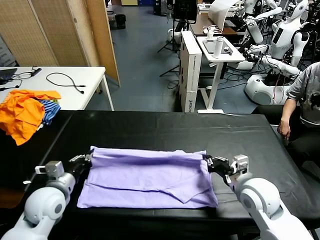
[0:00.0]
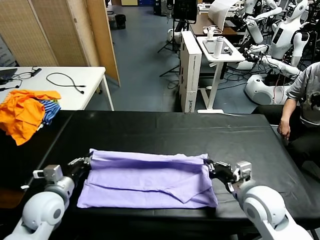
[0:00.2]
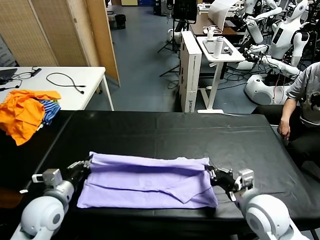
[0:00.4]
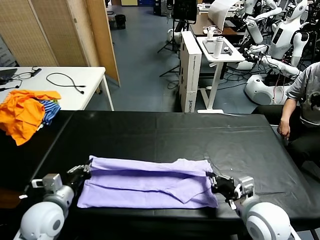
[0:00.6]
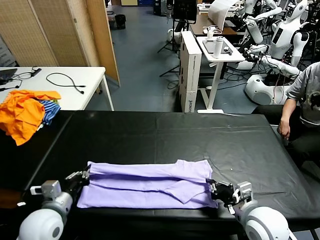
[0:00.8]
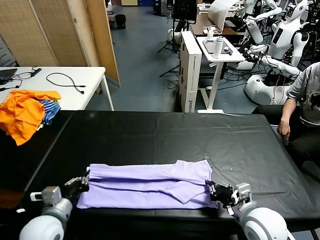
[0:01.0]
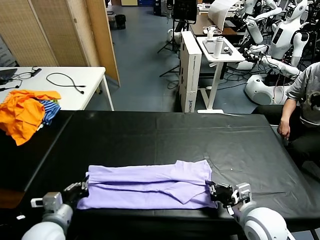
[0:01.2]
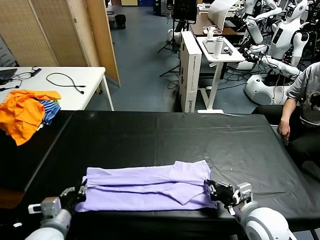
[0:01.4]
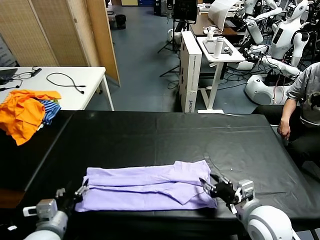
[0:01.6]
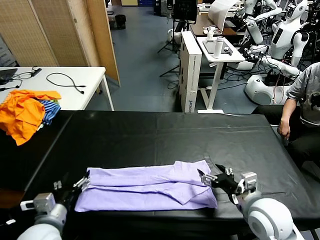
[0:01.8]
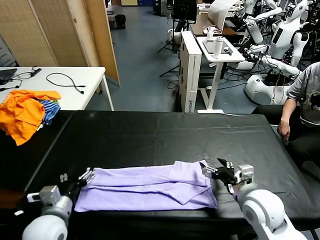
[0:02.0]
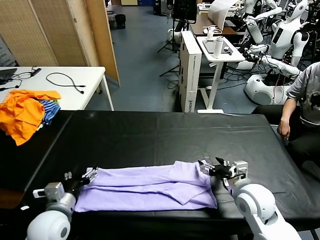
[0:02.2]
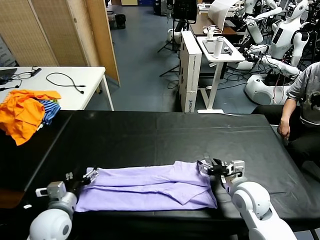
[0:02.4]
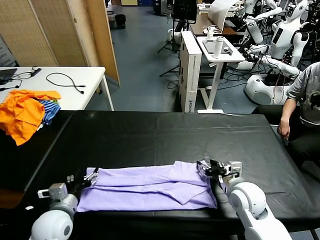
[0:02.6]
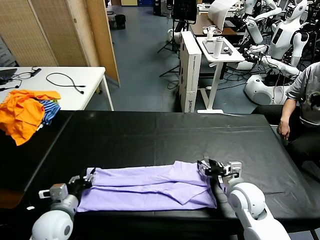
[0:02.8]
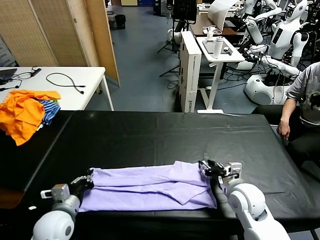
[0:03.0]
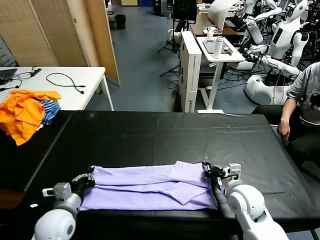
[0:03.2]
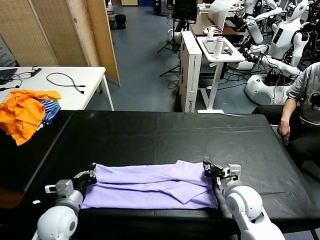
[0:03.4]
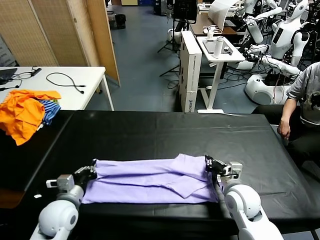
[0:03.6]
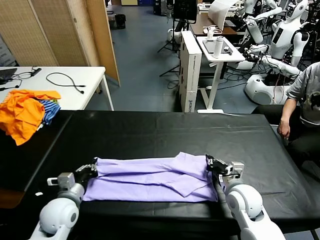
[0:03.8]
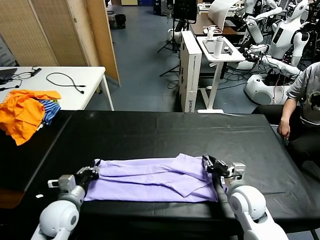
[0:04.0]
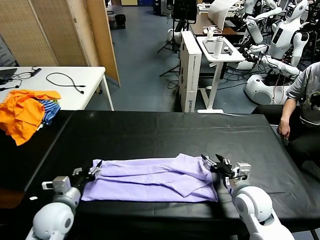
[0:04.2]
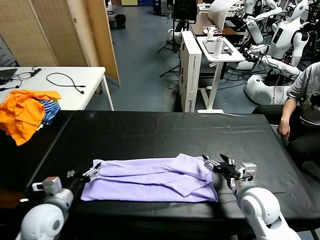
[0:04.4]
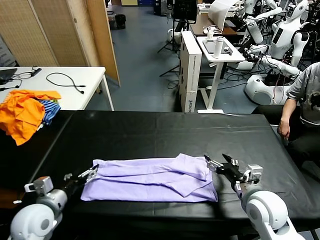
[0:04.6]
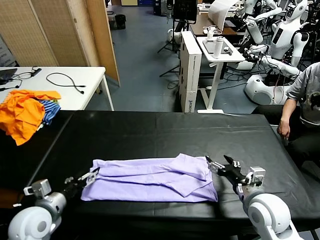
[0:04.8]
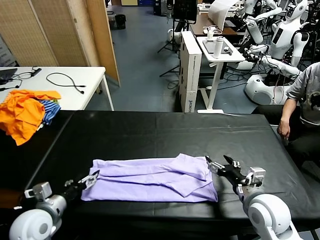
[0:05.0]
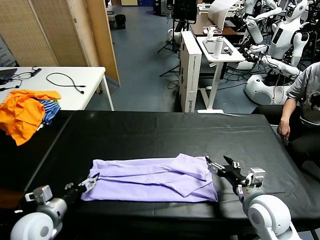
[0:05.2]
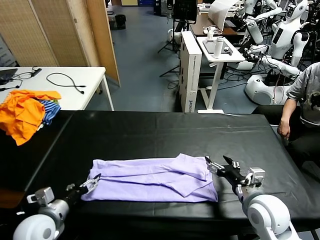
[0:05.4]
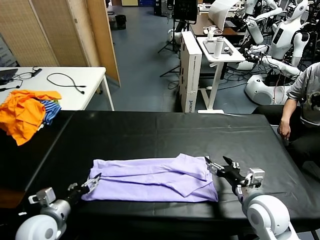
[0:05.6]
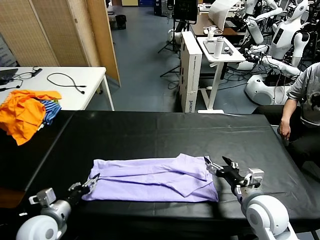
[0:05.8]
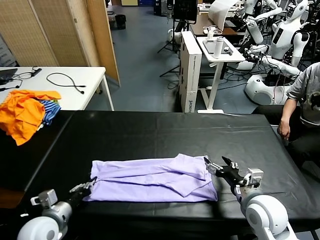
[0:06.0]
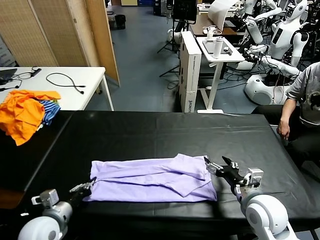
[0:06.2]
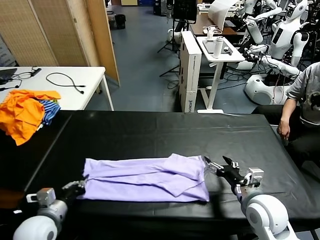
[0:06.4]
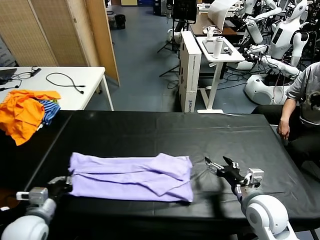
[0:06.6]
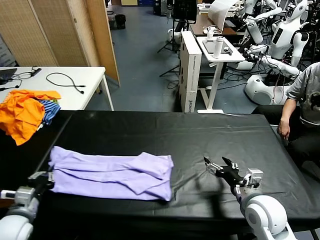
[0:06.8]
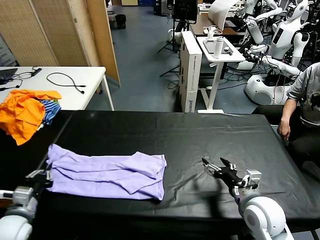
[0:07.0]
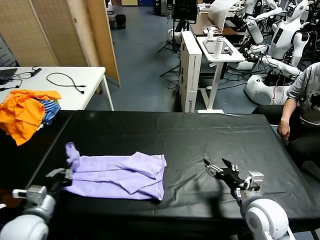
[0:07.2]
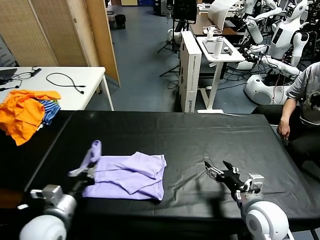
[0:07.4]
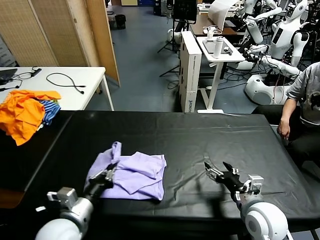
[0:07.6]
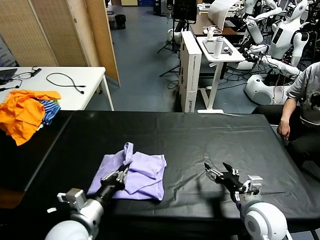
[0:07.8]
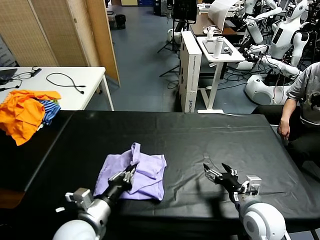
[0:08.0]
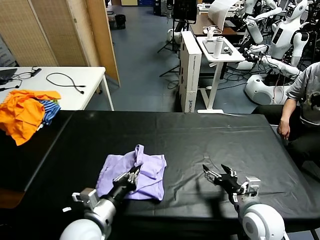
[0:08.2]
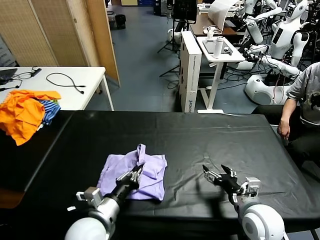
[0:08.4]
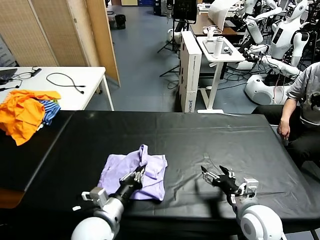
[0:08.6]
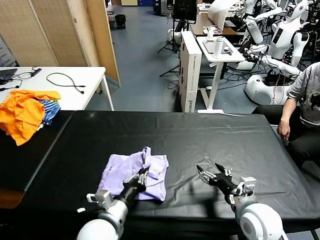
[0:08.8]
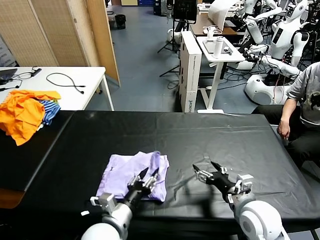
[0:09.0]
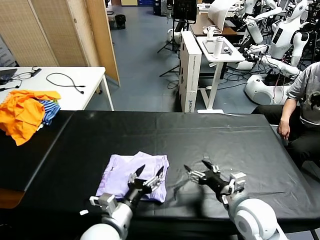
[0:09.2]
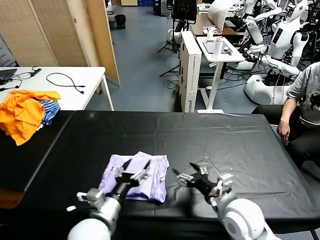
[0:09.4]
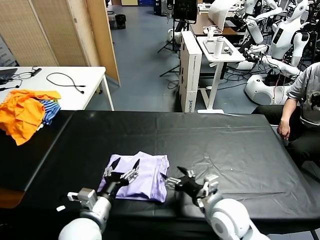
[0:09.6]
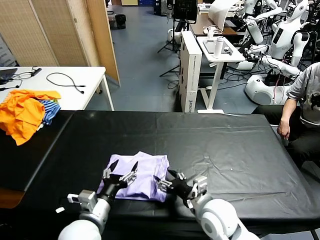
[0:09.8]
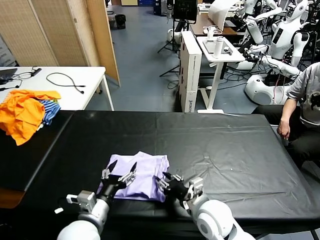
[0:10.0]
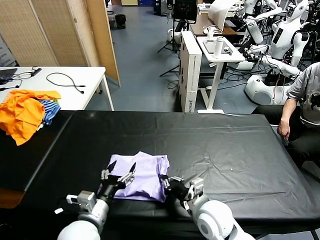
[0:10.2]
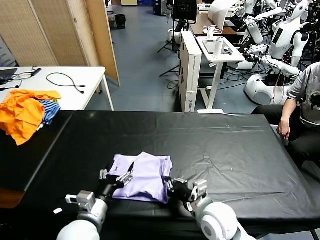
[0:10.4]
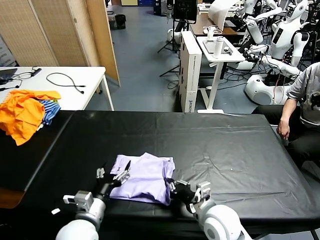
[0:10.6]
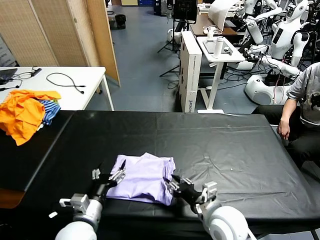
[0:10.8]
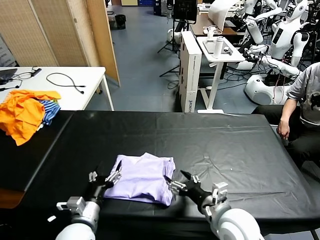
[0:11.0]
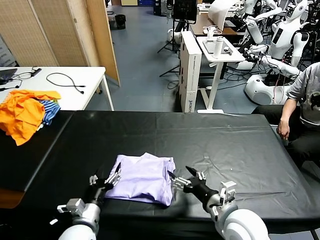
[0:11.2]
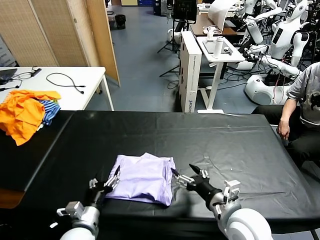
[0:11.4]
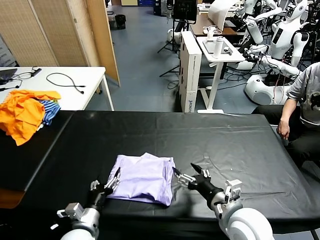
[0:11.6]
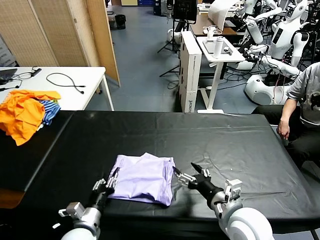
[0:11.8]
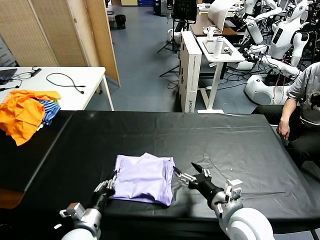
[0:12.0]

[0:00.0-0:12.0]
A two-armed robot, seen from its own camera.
Task of the whole recording: fold and organize the clothes.
Step, 0:00.0 to 0:04.0: use both grippers to drag the upper edge of the fabric backward and fold it over the lower edge.
Step, 0:04.2 to 0:06.2: use the left gripper to clamp the left edge of the fabric.
Step, 0:06.4 to 0:11.0: use the left gripper to drag the left edge of the fabric to the left and folds it over the right edge.
0:00.0 to 0:01.6: The right gripper opens, while the left gripper goes about 10 cm backward, and opens.
0:01.6 to 0:03.0: The left gripper goes some 5 cm forward, and closes its fingers. The right gripper goes some 10 cm forward and downward, and closes its fingers.
0:03.0 to 0:04.4: The right gripper moves roughly 5 cm, and opens up. Meanwhile the left gripper opens its fingers.
0:04.4 to 0:06.0: The left gripper closes up.
0:06.0 to 0:07.6: The left gripper moves to the right and upward, about 10 cm.
0:07.6 to 0:09.0: The left gripper is displaced to the right by about 10 cm, and opens its fingers.
0:09.0 to 0:10.4: The left gripper moves to the left, about 5 cm, and opens. Meanwhile the right gripper travels to the left by approximately 10 cm, and closes.
0:10.4 to 0:12.0: The right gripper shifts approximately 10 cm upward and to the right, and opens. Meanwhile the left gripper shifts about 10 cm downward, and closes.

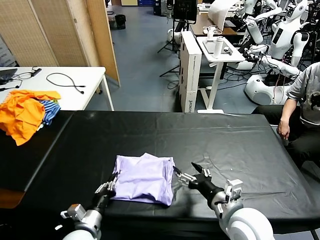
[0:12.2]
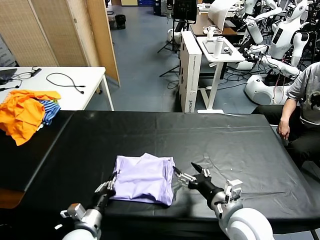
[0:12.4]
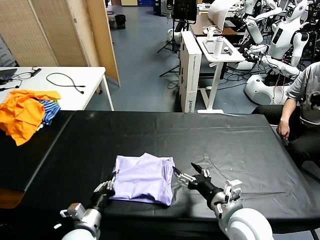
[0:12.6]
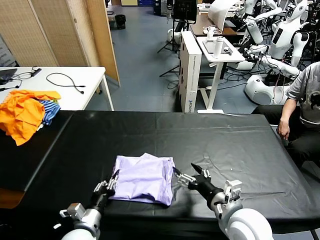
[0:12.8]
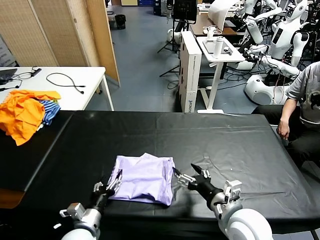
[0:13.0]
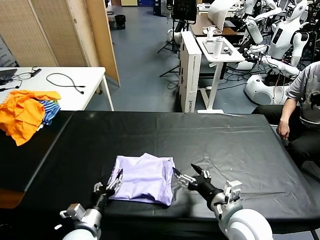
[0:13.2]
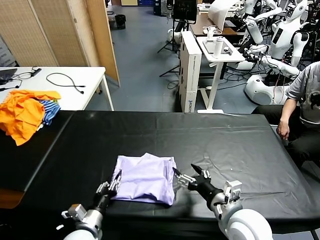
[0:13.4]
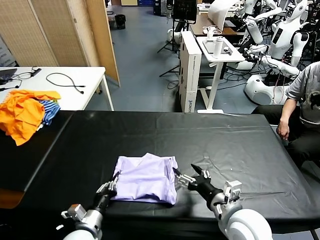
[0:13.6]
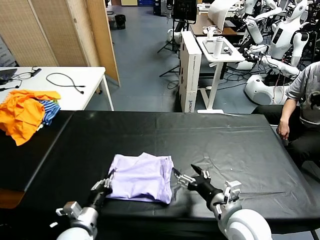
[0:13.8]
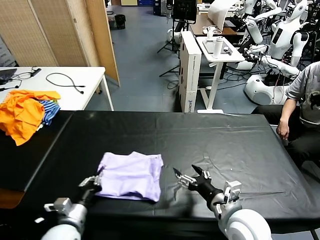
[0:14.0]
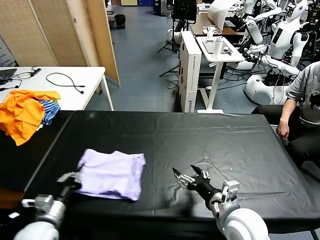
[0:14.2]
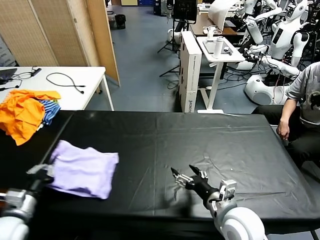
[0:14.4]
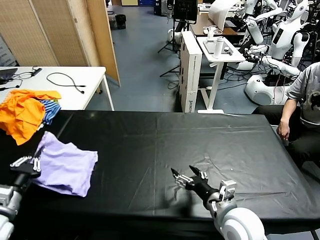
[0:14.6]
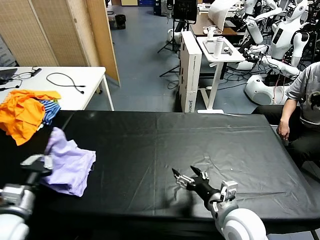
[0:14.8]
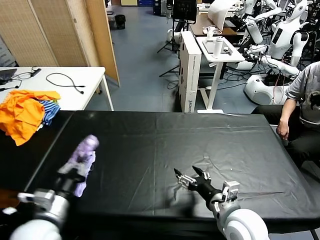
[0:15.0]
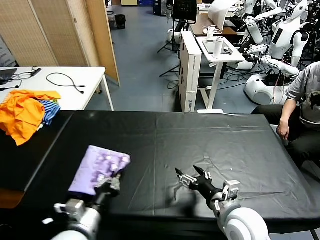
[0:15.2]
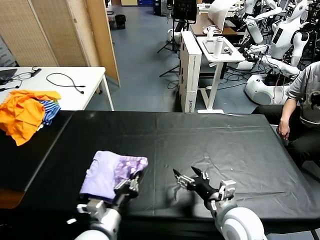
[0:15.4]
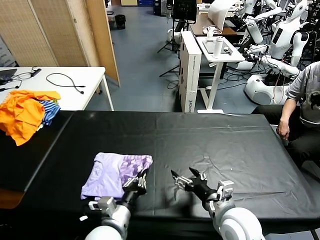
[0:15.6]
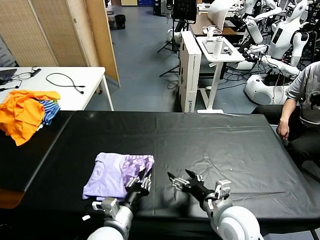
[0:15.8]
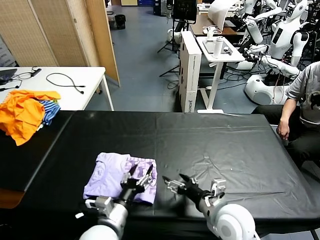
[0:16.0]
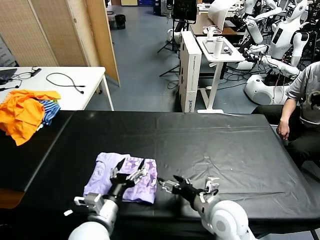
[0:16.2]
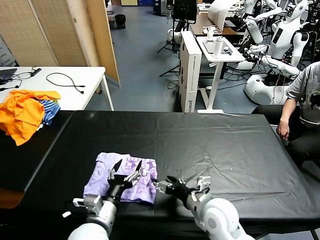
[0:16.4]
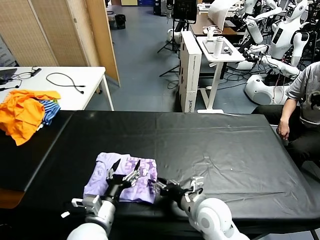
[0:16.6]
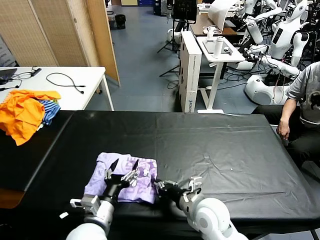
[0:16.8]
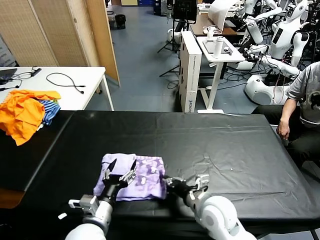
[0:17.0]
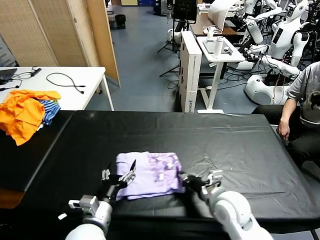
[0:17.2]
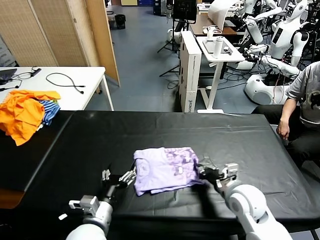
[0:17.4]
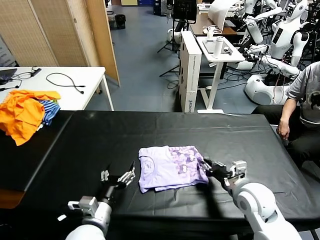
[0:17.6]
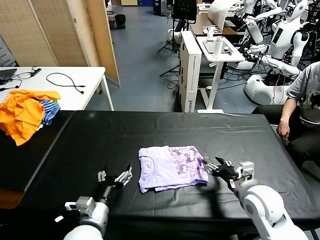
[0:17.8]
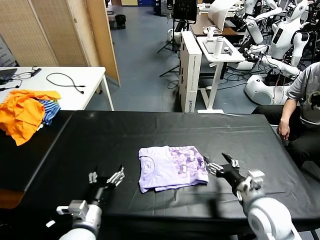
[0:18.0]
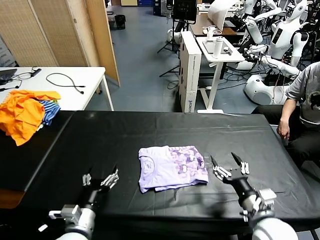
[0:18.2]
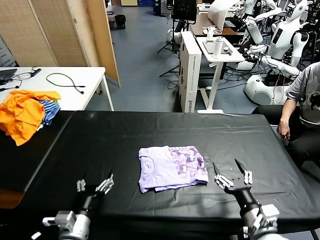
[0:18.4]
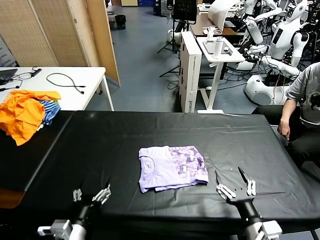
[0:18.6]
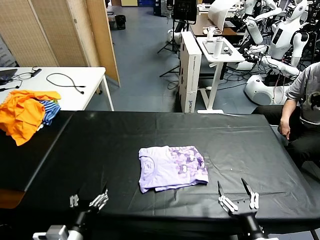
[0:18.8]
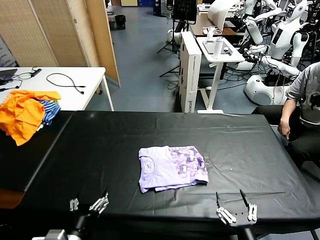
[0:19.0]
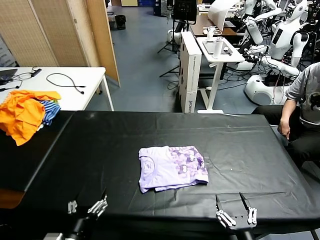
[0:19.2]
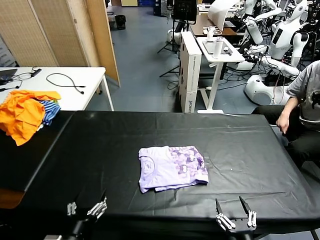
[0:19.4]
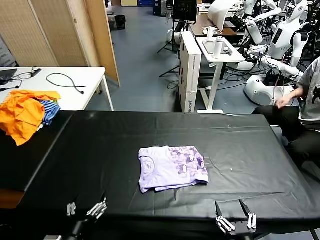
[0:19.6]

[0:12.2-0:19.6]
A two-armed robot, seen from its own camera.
Task of the whole recording: fold and organize the clothes.
Step, 0:12.2 to 0:16.2: Flip the folded clothes over with left gripper.
Step, 0:16.4 to 0:17.8: Drag the clothes to the center of the table.
0:12.2 to 0:13.6: The left gripper opens, then closes once more.
0:13.6 to 0:15.2: The left gripper travels upward by roughly 10 cm, and reaches about 15 cm to the left, then returns.
0:15.2 to 0:16.6: The left gripper is displaced to the right by roughly 5 cm, and opens up, while the right gripper heads to the left, covering about 5 cm, and closes up.
0:16.6 to 0:18.2: The right gripper shifts about 15 cm to the right and backward, and opens.
0:18.2 to 0:19.6: The right gripper moves backward, some 15 cm. The left gripper is displaced backward by approximately 10 cm.
